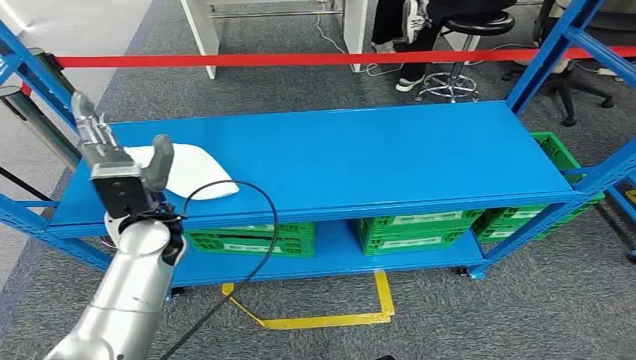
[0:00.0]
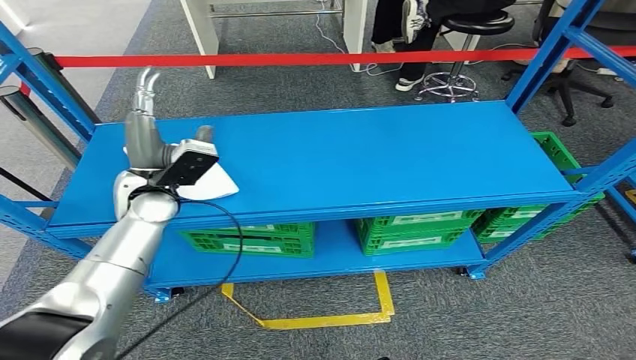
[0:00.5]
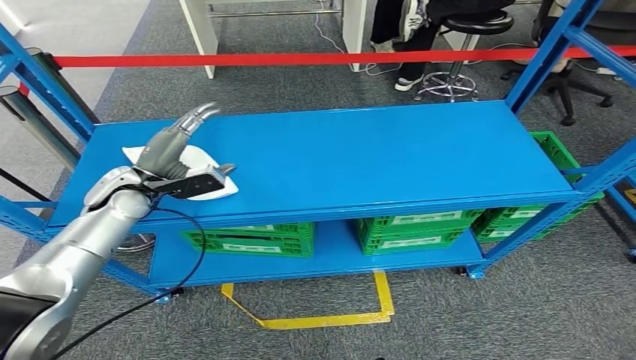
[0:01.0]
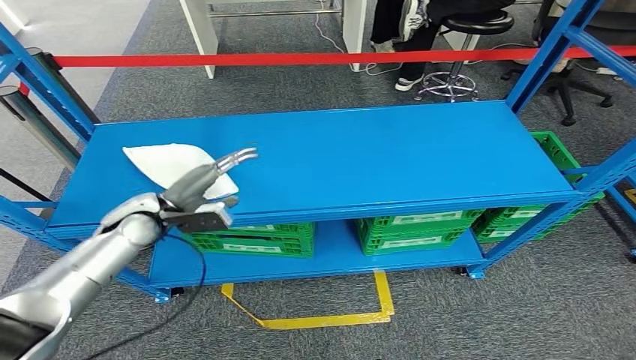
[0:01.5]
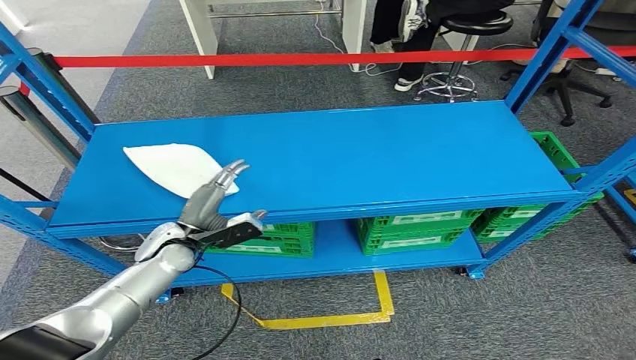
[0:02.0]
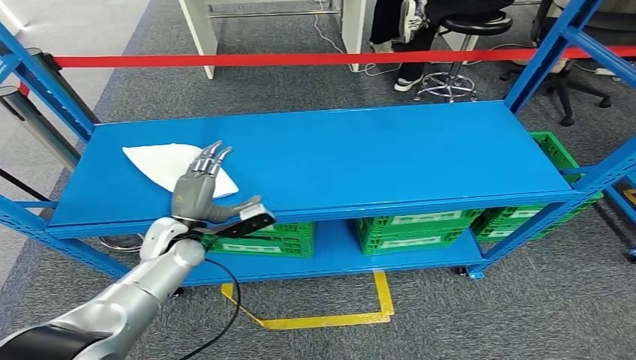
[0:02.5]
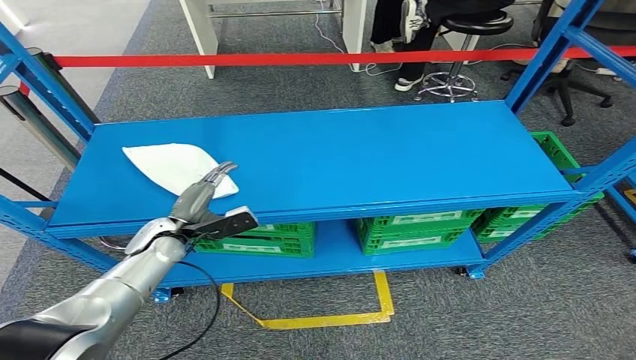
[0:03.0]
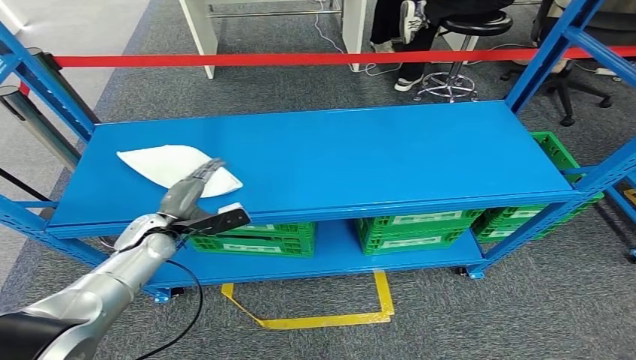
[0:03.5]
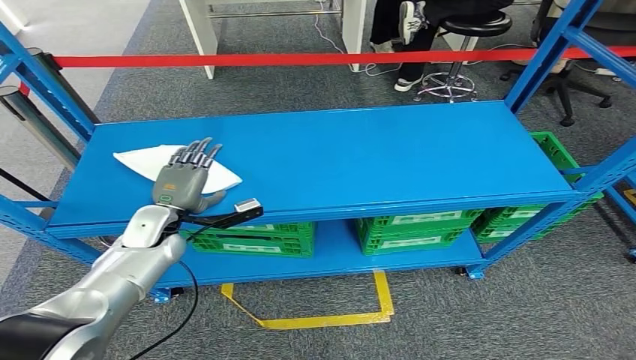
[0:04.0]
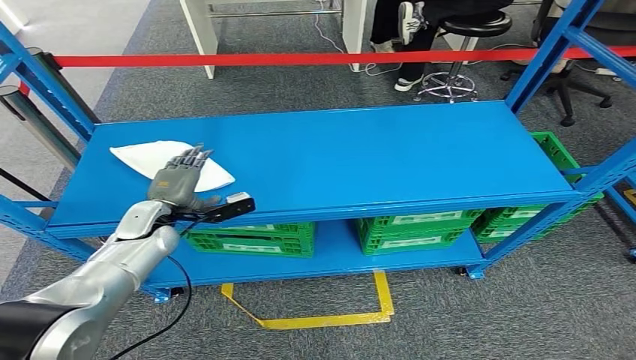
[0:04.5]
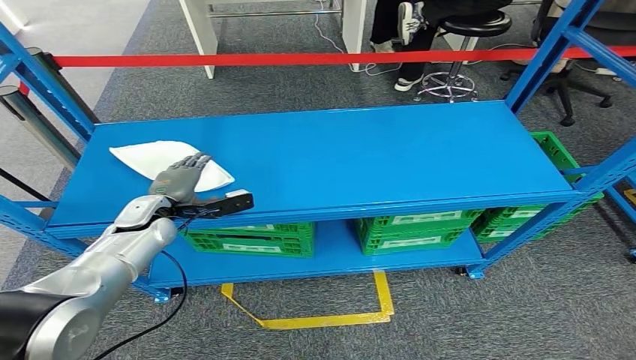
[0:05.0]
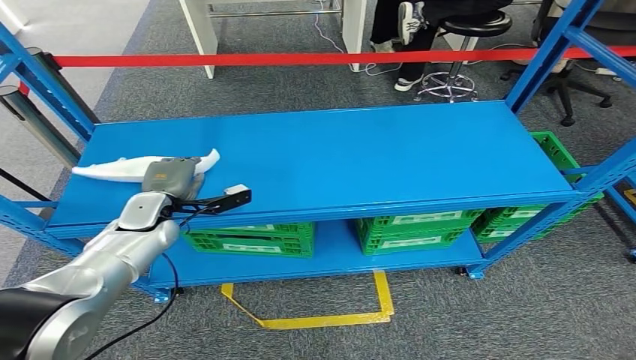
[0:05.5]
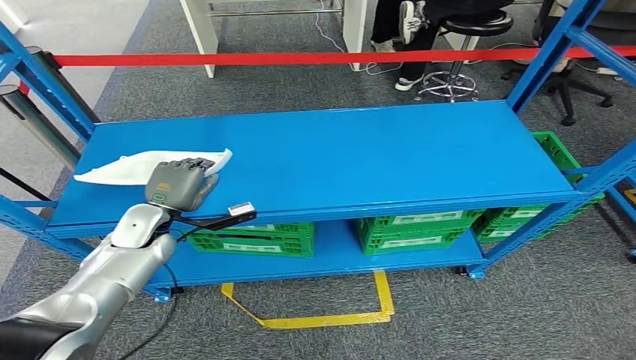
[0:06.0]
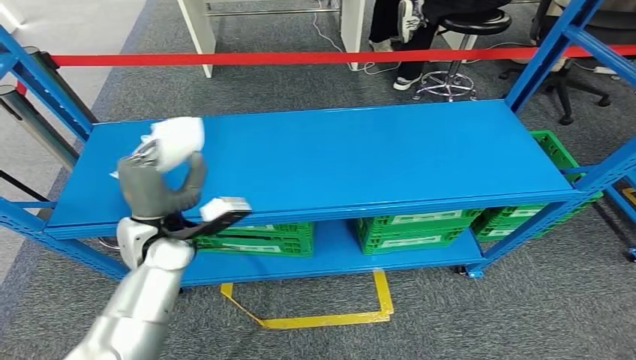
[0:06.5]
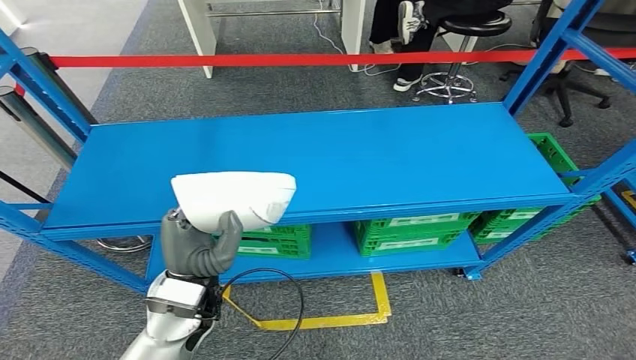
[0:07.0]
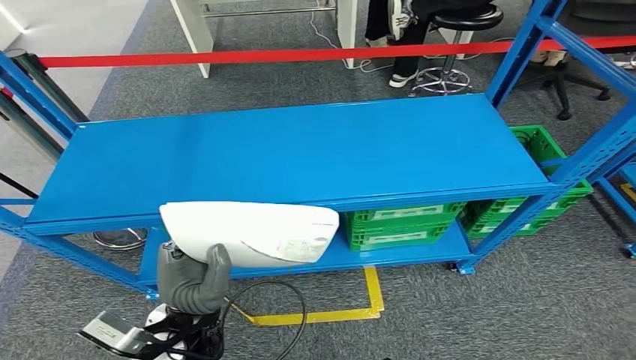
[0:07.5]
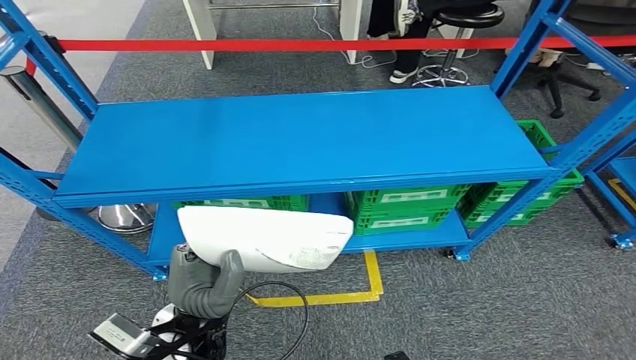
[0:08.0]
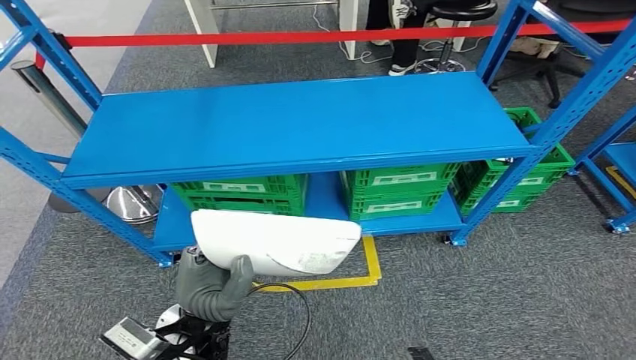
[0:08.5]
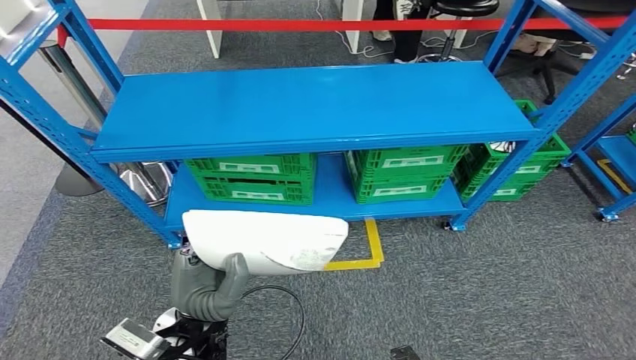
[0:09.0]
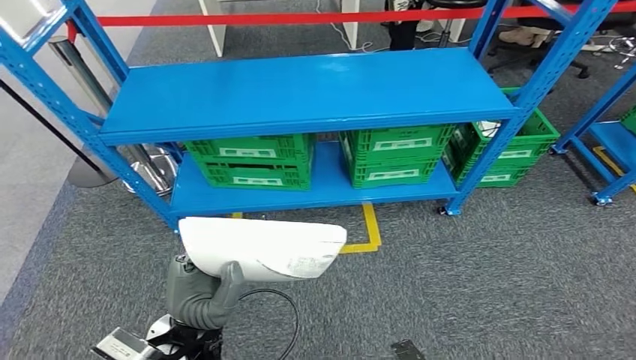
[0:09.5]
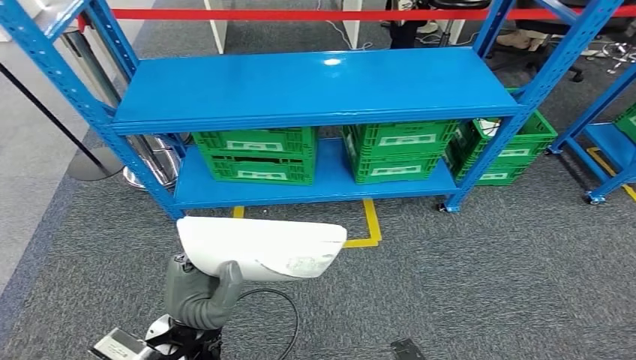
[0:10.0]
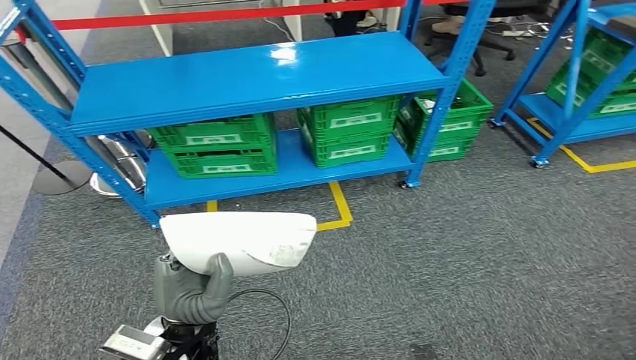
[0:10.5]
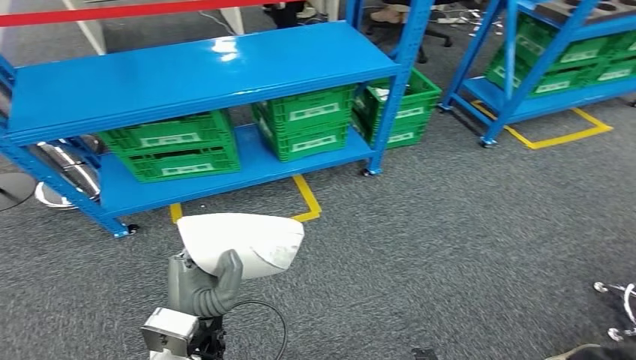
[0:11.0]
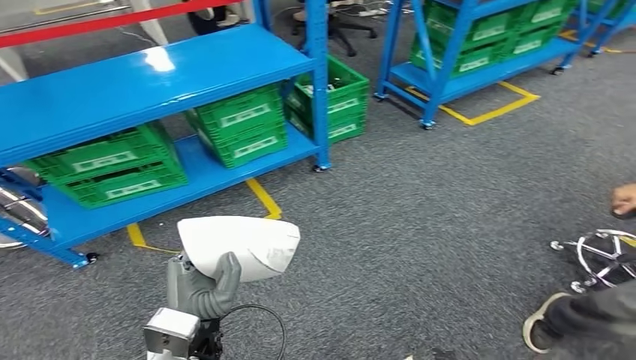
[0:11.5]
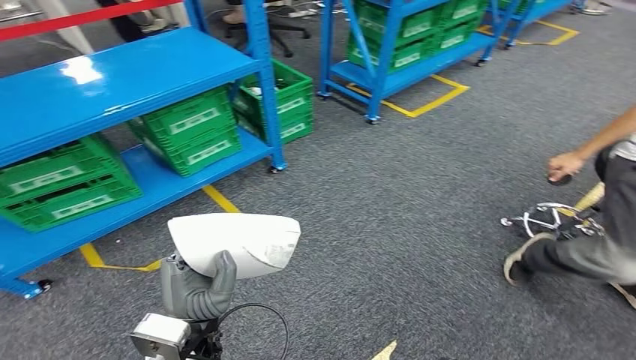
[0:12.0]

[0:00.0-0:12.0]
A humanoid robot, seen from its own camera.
Step, 0:00.0 to 0:07.5: Pick up the small parts from the shelf.

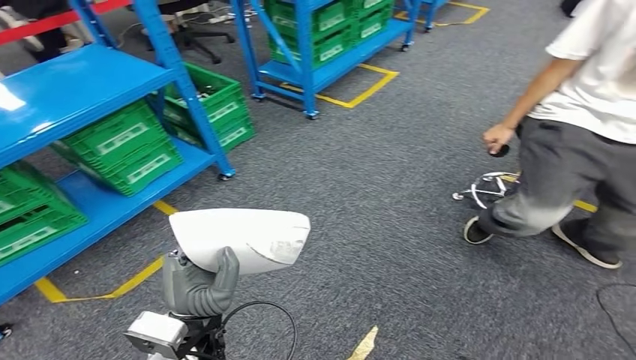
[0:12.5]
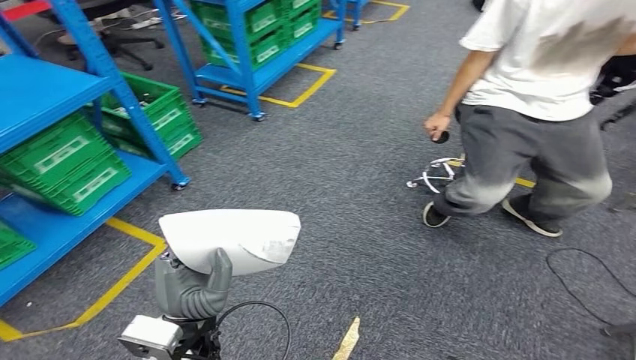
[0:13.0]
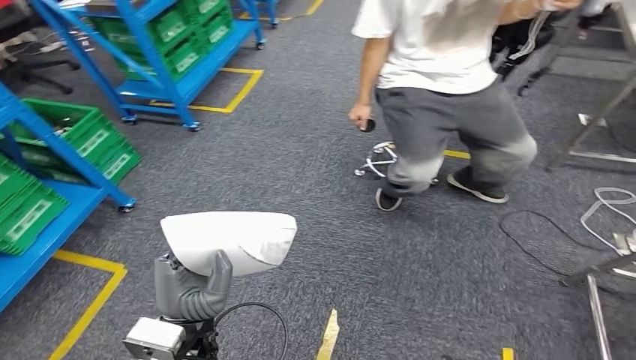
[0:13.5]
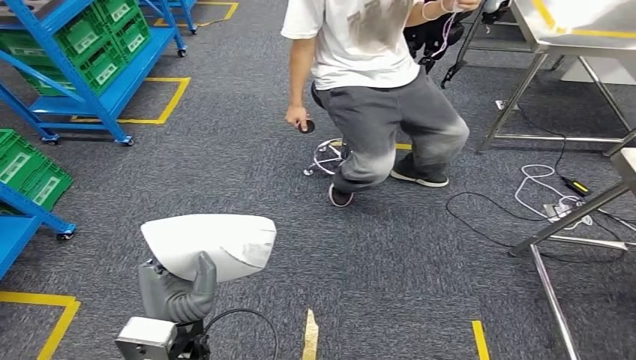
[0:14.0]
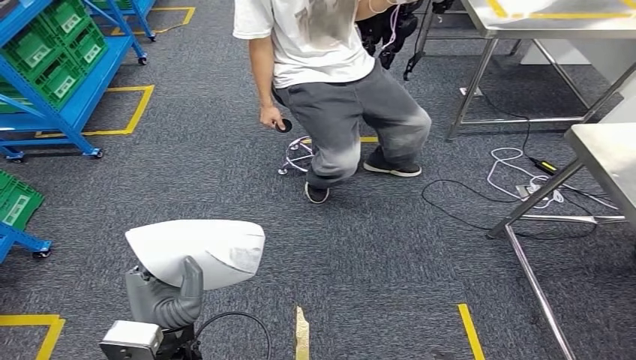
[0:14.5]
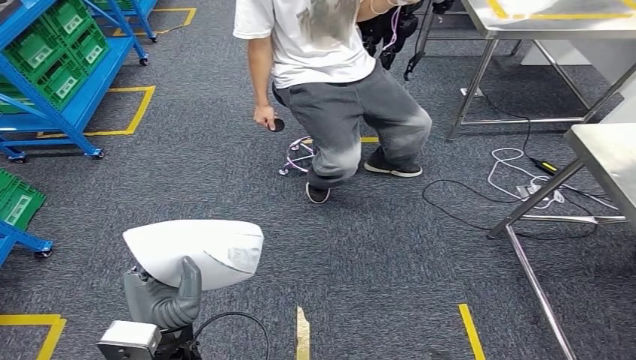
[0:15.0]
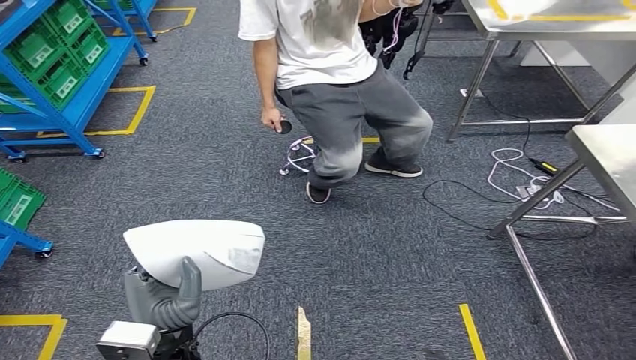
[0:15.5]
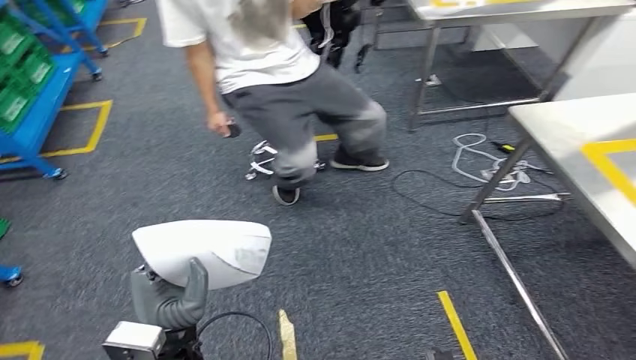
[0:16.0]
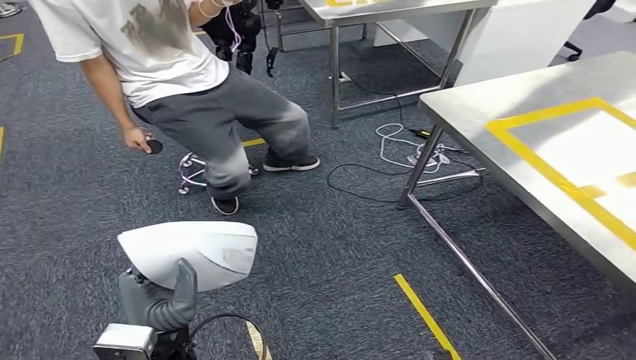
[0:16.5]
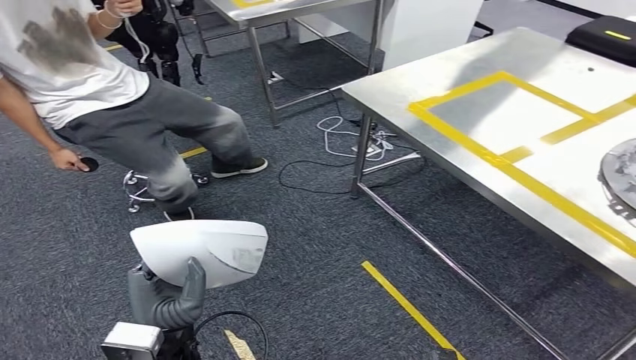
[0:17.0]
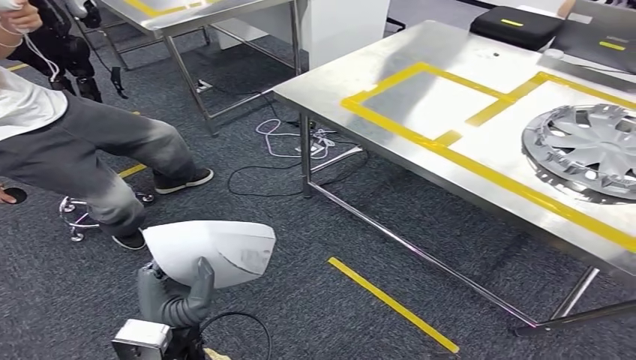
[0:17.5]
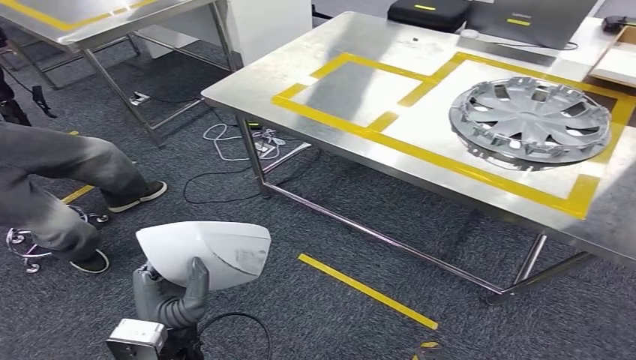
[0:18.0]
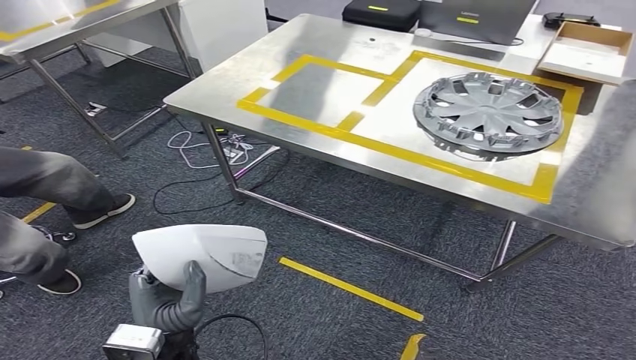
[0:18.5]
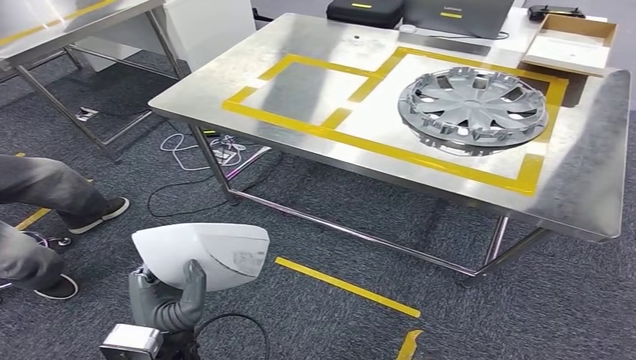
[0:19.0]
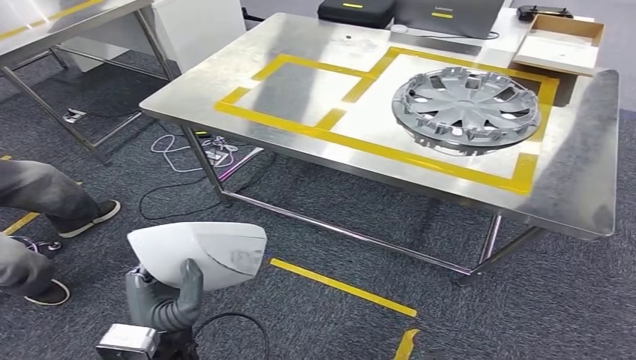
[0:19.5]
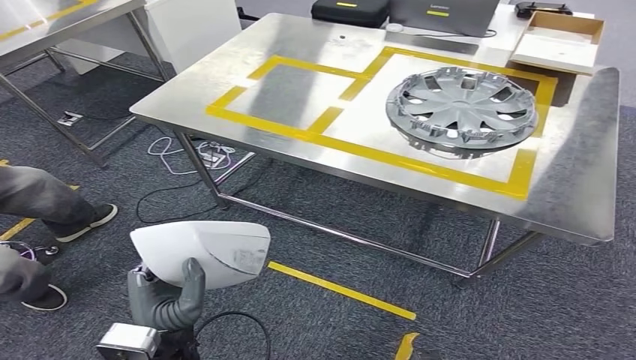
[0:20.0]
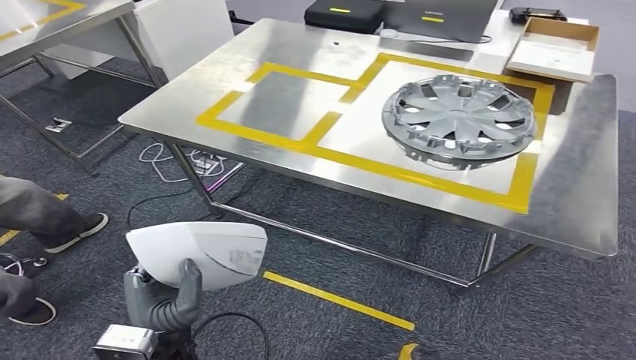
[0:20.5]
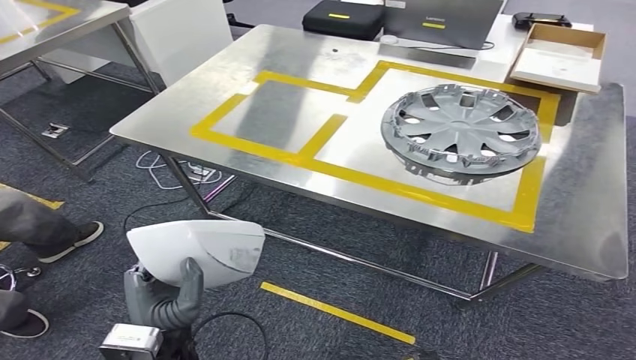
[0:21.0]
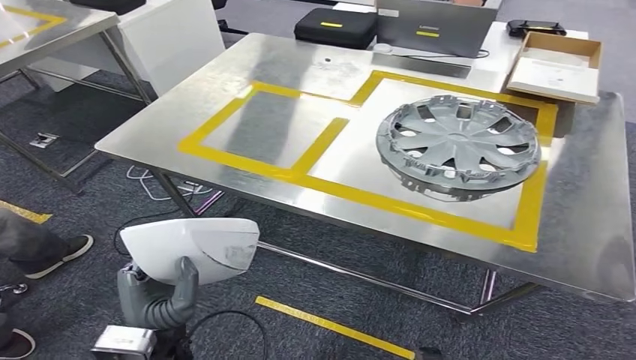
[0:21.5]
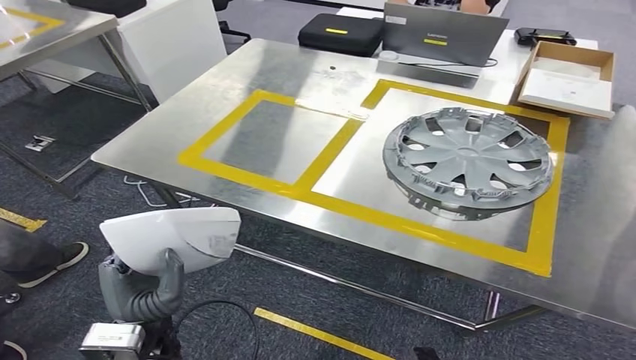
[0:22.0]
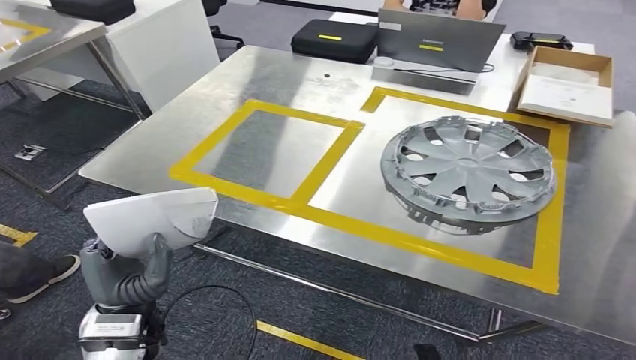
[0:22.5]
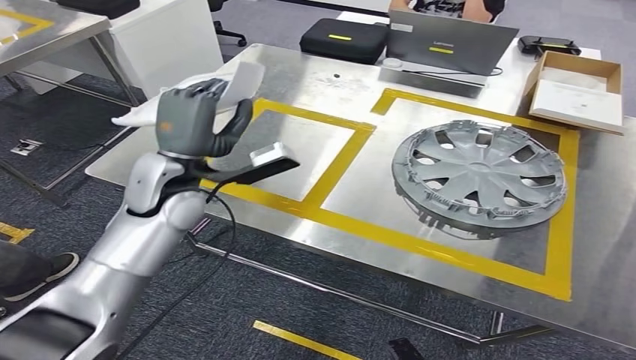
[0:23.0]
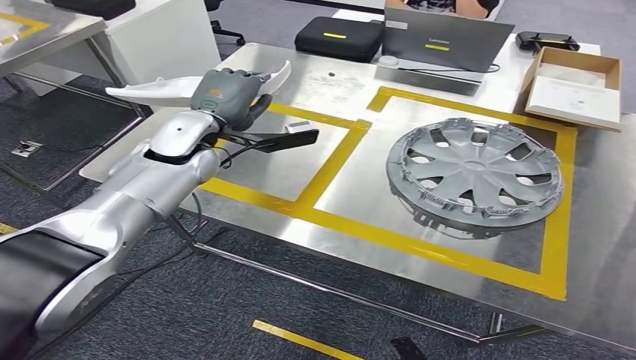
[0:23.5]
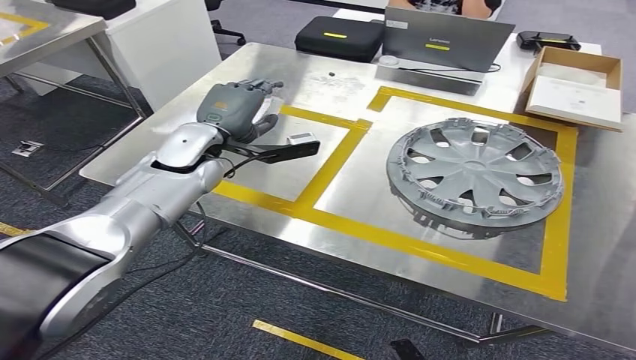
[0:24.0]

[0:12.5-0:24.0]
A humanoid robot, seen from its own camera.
Step, 0:12.5 to 0:20.0: Move the small parts to the workbench.
